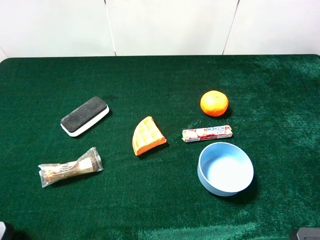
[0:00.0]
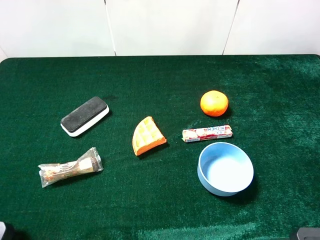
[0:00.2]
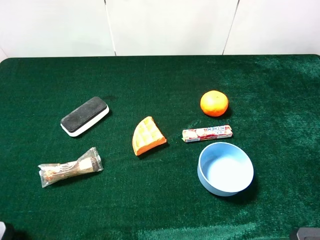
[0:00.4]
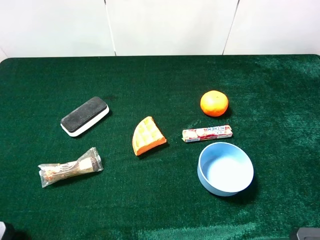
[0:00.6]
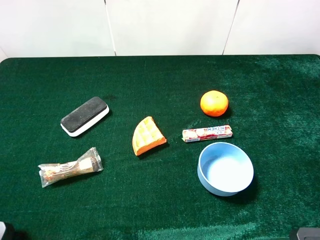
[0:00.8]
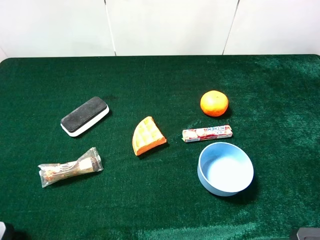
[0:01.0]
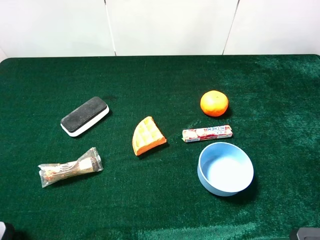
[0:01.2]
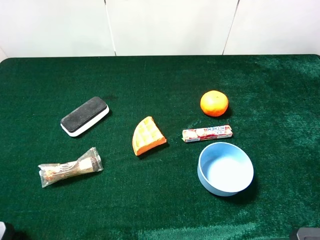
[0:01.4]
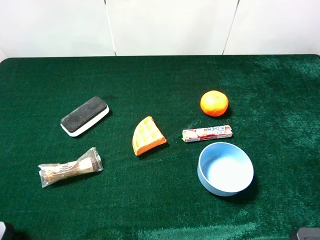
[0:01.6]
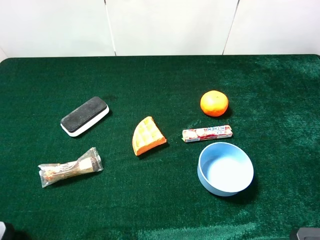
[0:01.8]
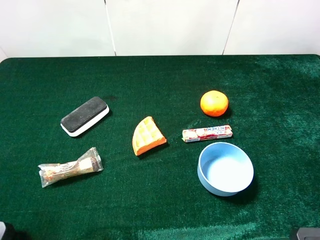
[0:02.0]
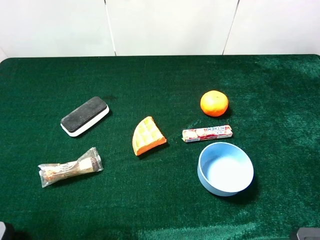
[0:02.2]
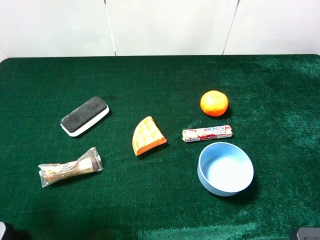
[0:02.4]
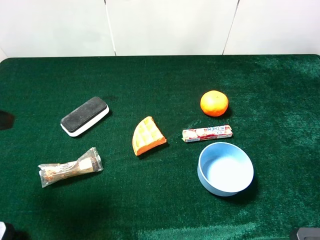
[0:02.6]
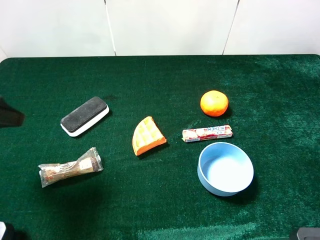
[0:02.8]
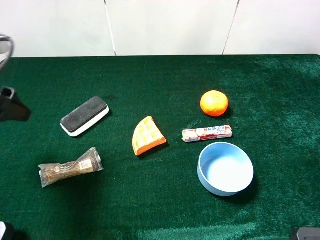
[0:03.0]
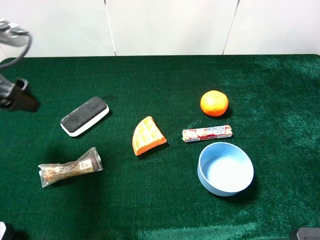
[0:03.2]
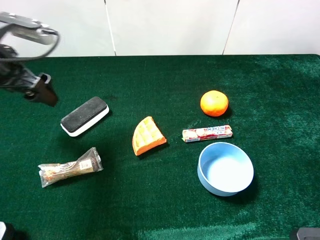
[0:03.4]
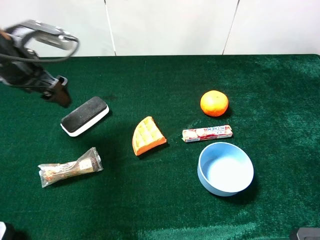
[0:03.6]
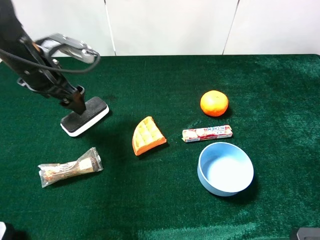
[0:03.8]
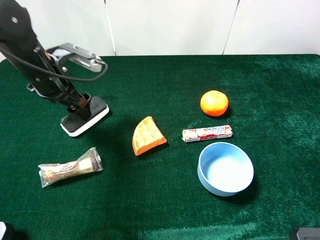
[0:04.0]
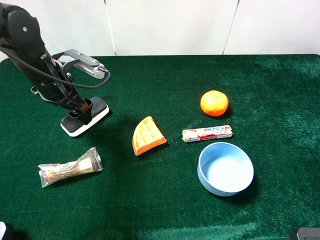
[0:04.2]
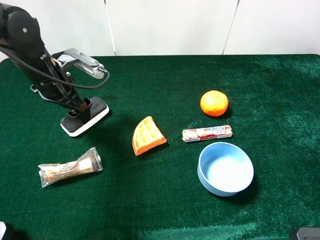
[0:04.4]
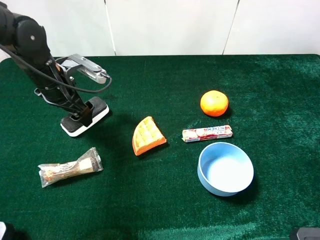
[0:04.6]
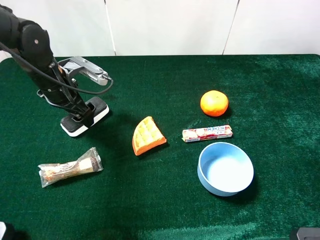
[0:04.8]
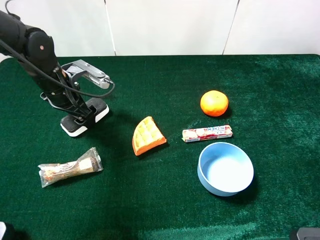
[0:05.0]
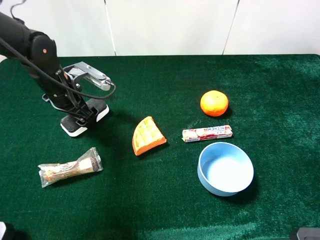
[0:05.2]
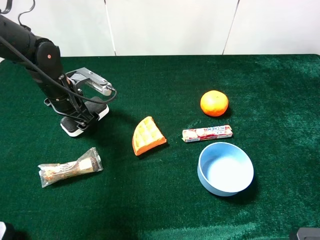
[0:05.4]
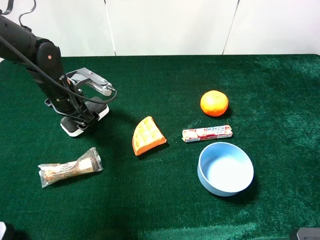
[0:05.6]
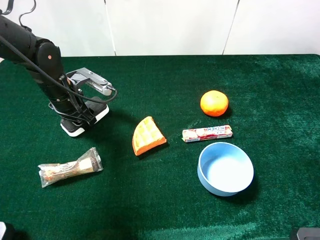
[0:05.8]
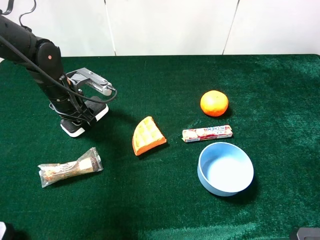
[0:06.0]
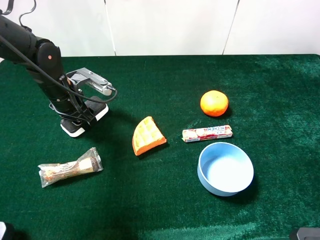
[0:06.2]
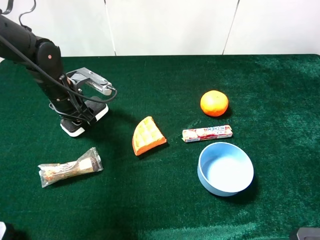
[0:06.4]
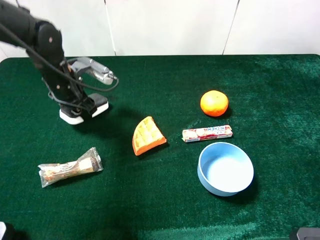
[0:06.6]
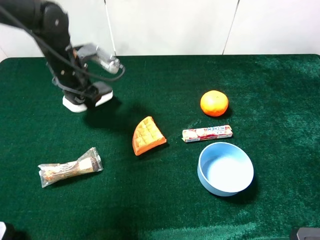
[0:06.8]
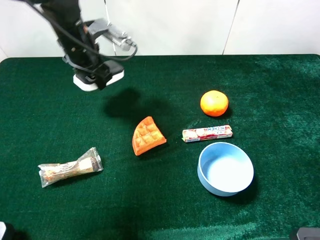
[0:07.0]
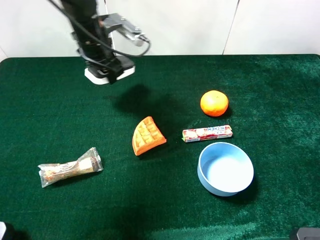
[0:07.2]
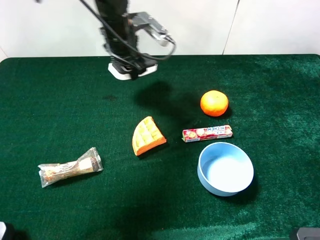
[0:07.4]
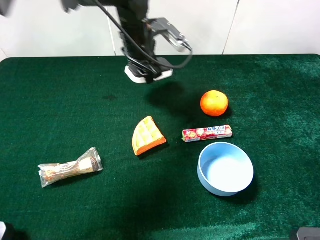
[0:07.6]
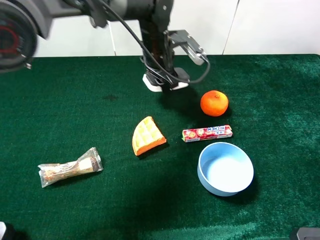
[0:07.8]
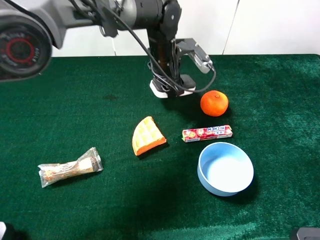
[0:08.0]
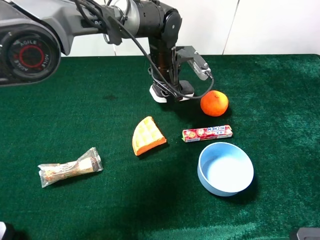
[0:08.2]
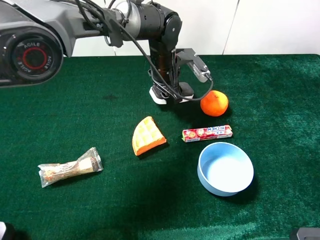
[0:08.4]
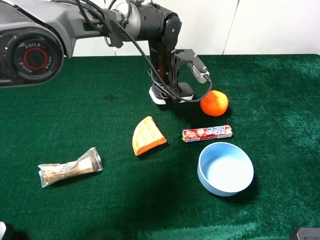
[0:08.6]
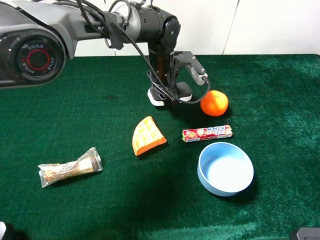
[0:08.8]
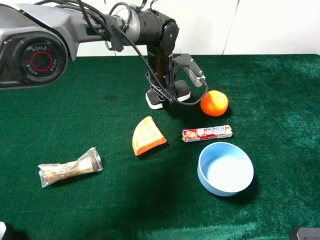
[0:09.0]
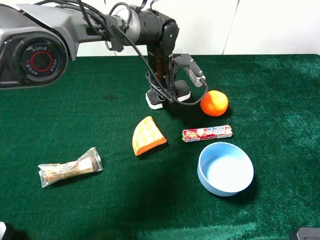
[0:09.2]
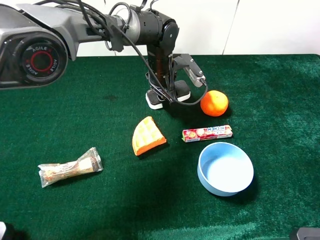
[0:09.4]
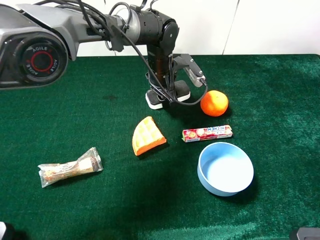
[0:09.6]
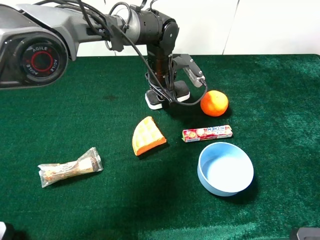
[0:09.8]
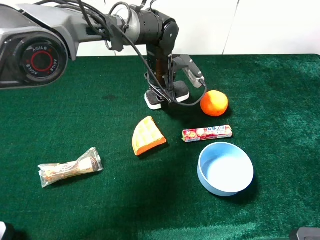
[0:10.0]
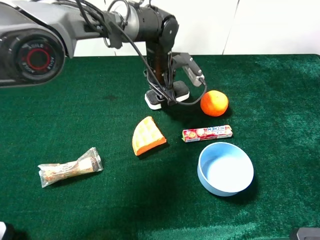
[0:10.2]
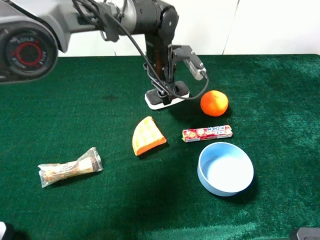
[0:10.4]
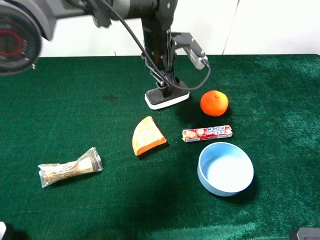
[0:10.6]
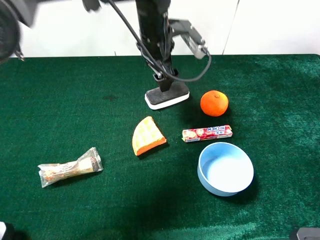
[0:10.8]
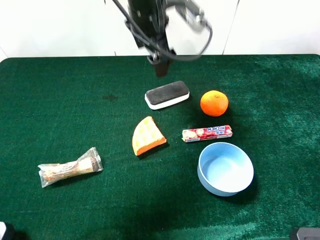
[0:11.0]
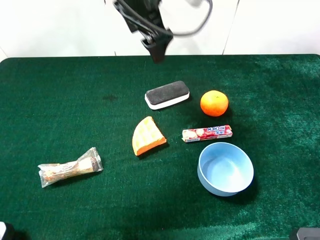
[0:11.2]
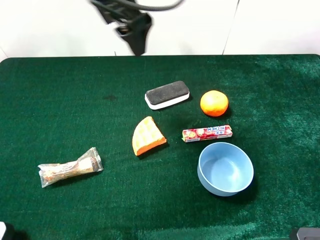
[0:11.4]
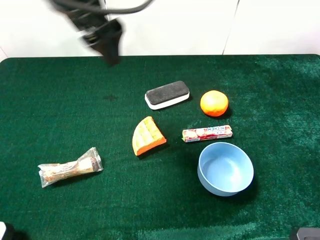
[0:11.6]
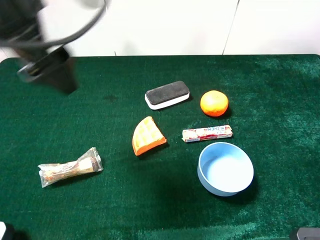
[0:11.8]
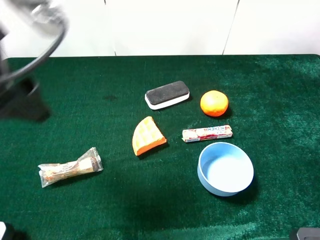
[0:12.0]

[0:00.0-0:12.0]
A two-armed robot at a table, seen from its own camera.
Task of the whole recording: the gripper move the object.
Step, 0:00.0 to 0:06.0: Grasp the white blackboard earser with left gripper.
Step, 0:06.2 to 0:10.2: Place the white blackboard earser on the table with the left gripper.
0:00.0 to 0:01.6: The two grippers keep their place.
0:01.6 to 0:03.0: The left gripper heads forward, covering some 20 cm.
0:03.0 to 0:04.4: The left gripper travels forward, downward and to the right by approximately 15 cm.
0:04.4 to 0:06.0: The left gripper goes about 5 cm downward, and closes its fingers.
0:06.0 to 0:07.6: The left gripper is displaced to the right and forward by approximately 20 cm.
0:07.6 to 0:09.0: The left gripper shifts some 5 cm downward.
0:09.0 to 0:10.4: The left gripper opens.
0:10.4 to 0:12.0: The left gripper shifts about 35 cm backward, to the left and upward, and opens.

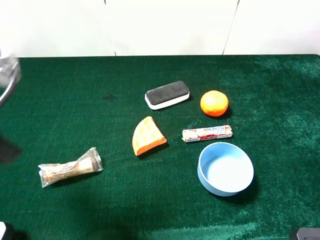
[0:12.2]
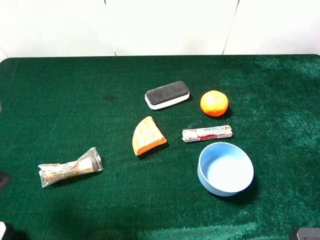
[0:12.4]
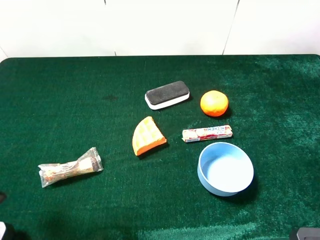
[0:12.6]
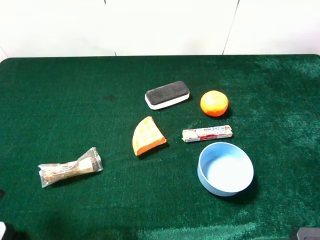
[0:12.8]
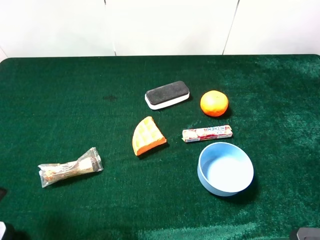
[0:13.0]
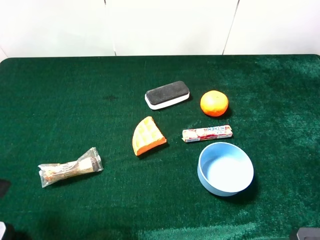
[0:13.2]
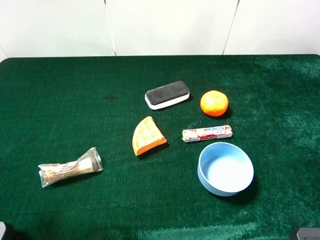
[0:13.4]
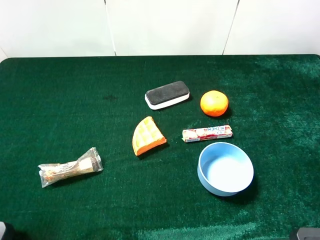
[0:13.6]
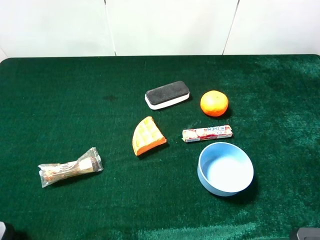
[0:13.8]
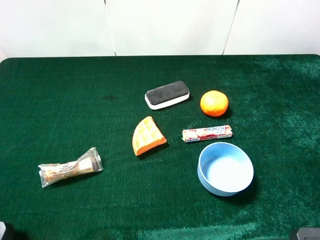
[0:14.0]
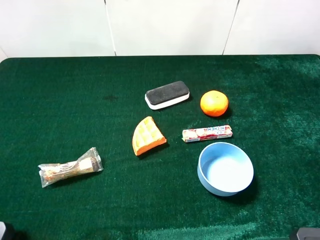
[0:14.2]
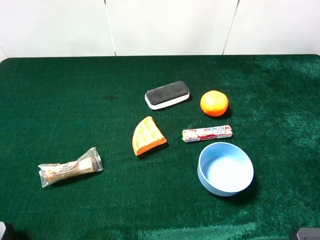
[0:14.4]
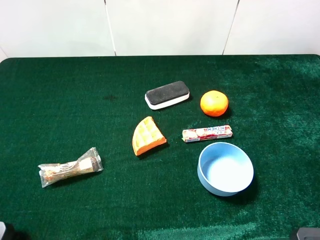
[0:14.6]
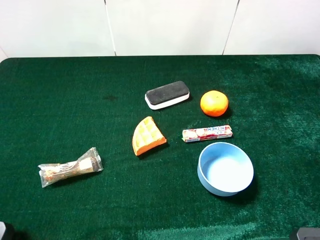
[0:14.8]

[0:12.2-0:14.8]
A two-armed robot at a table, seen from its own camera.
Task of the whole recording: the gripper move the object.
0:12.2 to 0:13.4: The left gripper is displaced backward and to the left by some 10 cm.

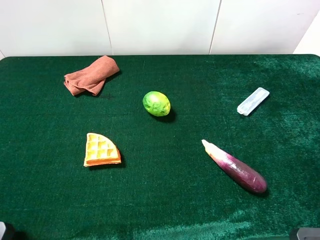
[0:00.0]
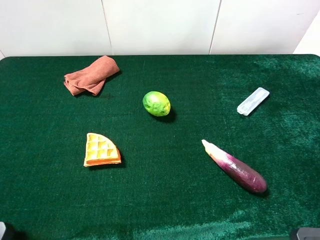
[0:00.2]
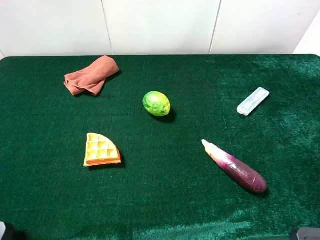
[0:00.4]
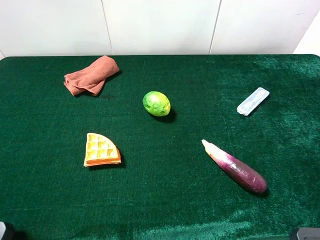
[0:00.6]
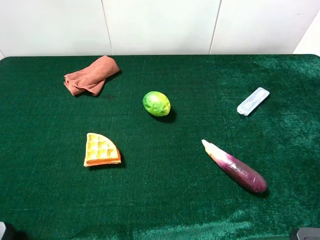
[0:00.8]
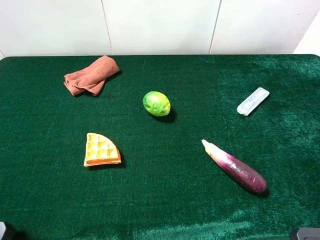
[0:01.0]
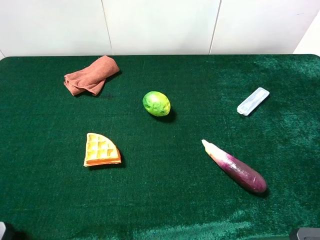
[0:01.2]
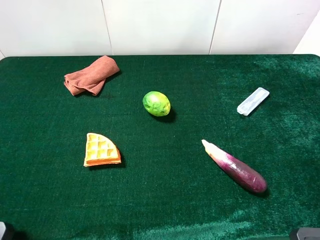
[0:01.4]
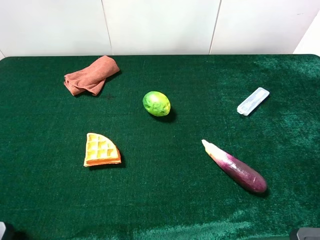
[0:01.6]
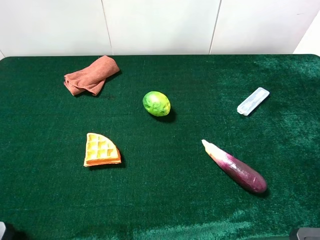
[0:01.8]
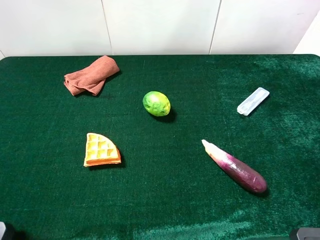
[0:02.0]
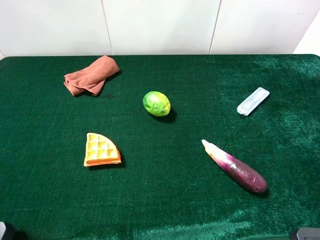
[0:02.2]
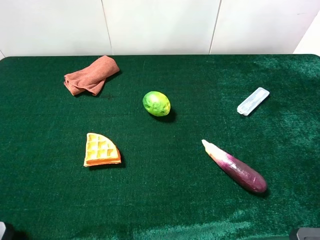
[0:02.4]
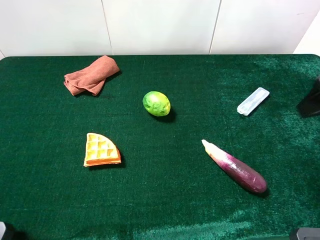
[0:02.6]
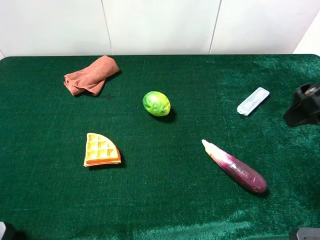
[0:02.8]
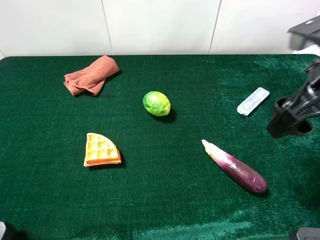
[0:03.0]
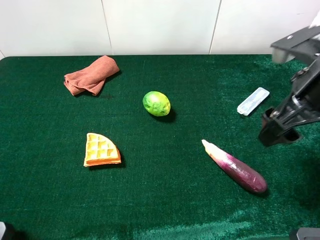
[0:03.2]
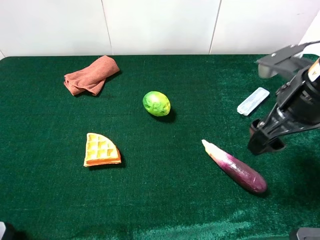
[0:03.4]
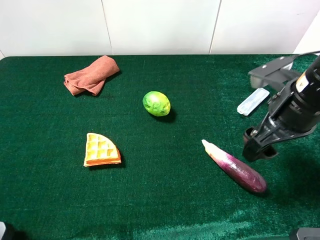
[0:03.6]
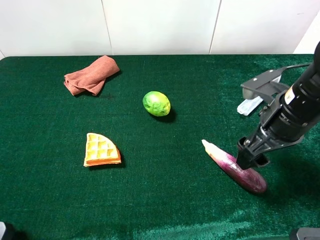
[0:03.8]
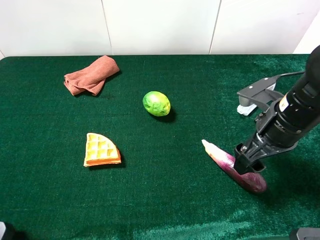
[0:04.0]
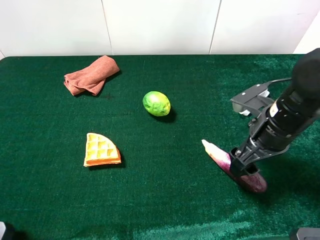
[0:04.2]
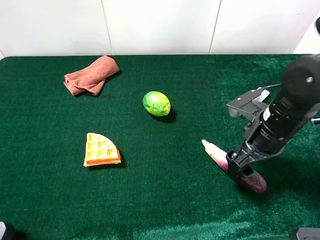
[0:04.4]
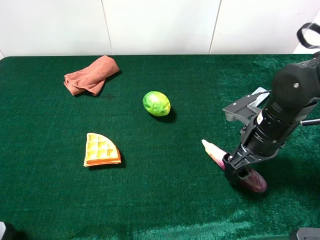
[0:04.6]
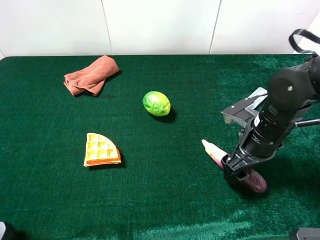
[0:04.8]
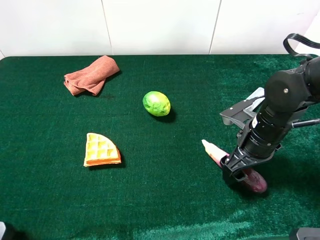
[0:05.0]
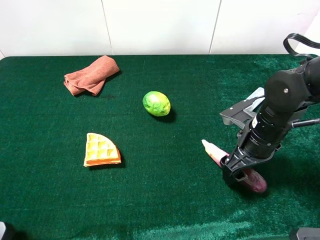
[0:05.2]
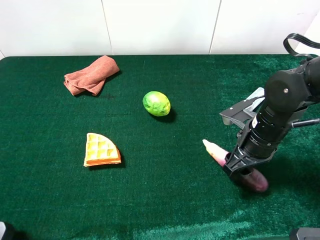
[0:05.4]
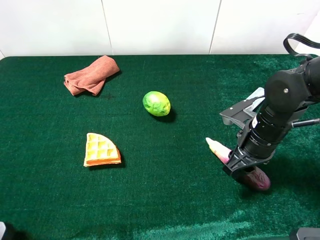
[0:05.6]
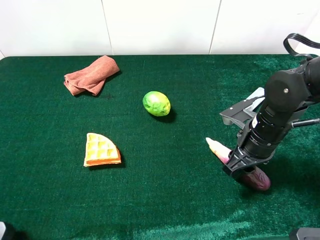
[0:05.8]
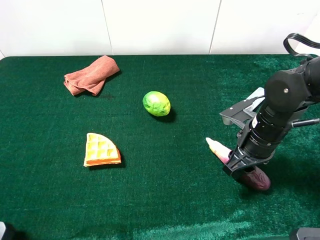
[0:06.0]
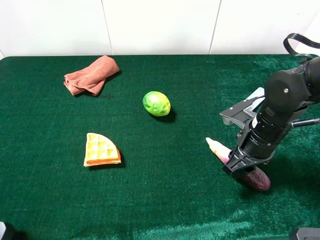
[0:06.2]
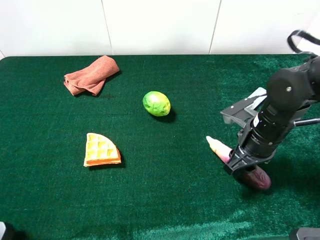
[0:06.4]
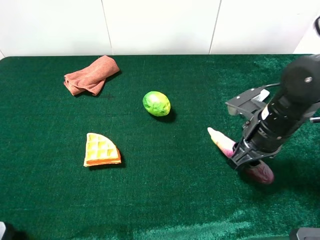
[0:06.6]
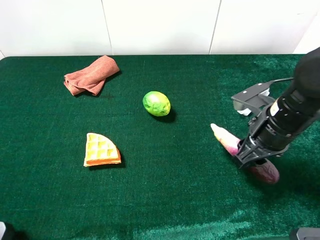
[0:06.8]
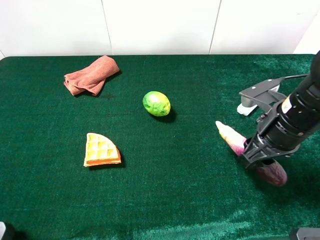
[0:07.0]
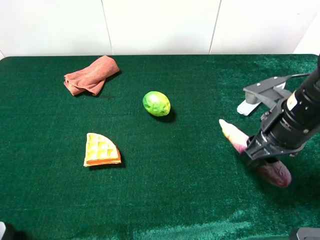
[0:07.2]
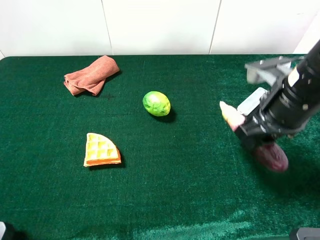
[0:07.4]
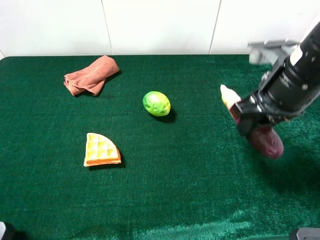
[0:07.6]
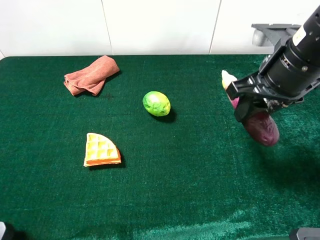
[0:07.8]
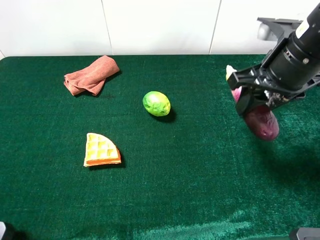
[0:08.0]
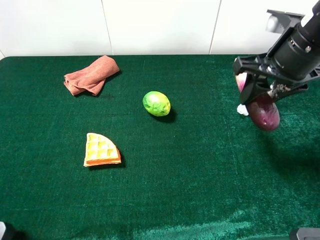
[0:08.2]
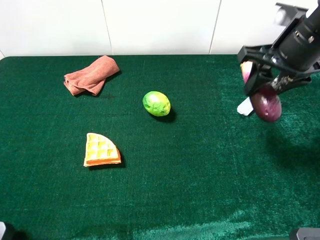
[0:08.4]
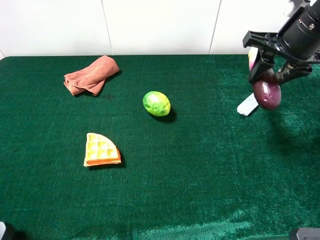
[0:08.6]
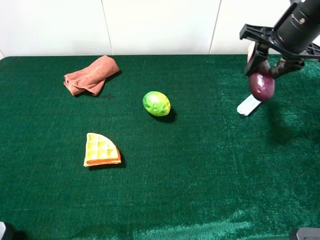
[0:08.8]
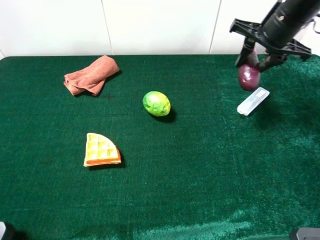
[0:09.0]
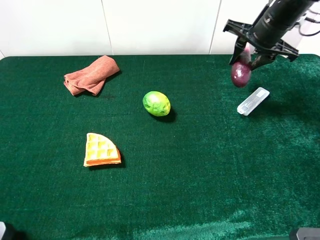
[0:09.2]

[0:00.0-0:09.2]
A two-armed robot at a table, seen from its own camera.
Task of the whole recording: the gripper move the object.
Step, 0:00.0 to 0:06.0: Grasp the eggplant with the right gripper.
0:01.6 to 0:03.0: The right gripper heads forward and to the left, covering roughly 20 cm.
0:03.0 to 0:04.6: The right gripper is displaced downward by approximately 15 cm.
0:04.6 to 0:06.2: The right gripper closes.
0:06.2 to 0:07.6: The right gripper is displaced upward by some 15 cm.
0:07.6 to 0:09.2: The right gripper travels forward by roughly 20 cm.
